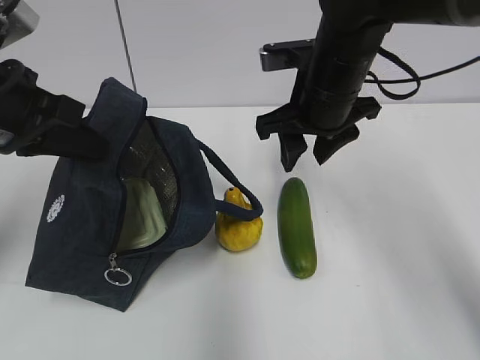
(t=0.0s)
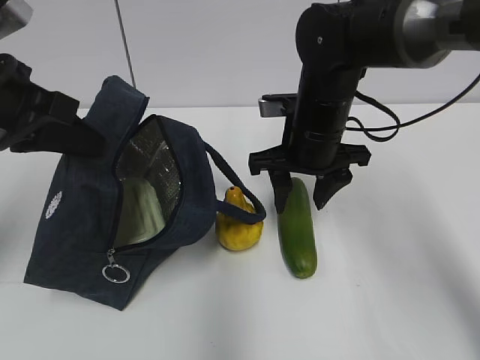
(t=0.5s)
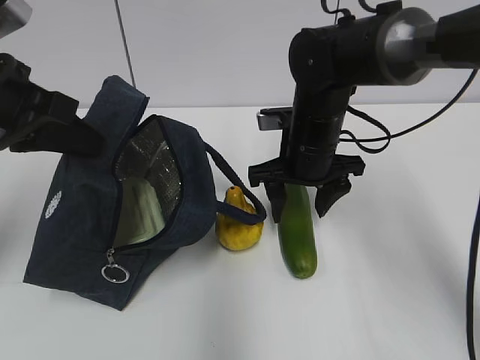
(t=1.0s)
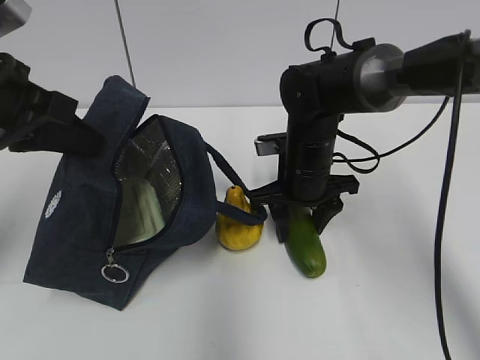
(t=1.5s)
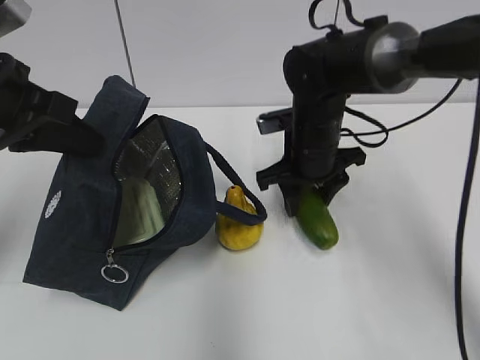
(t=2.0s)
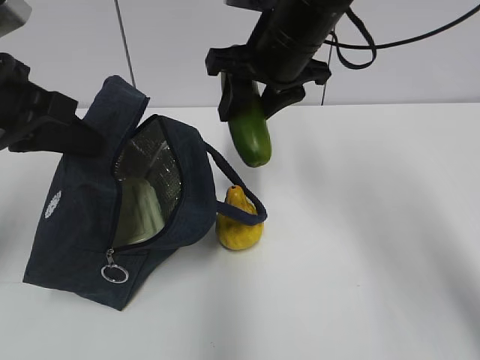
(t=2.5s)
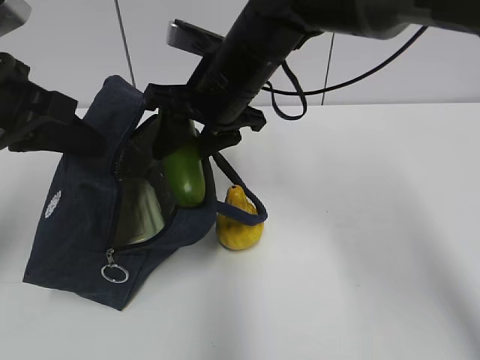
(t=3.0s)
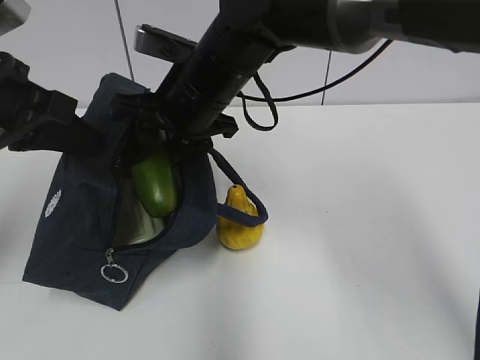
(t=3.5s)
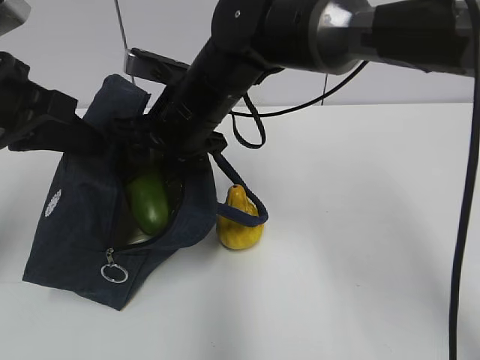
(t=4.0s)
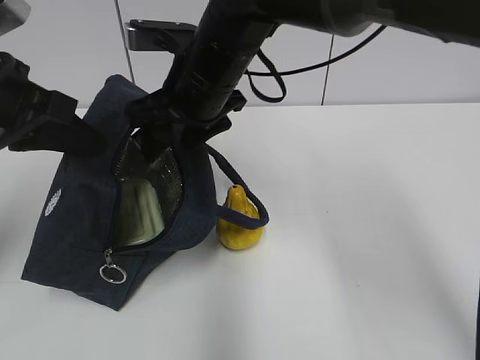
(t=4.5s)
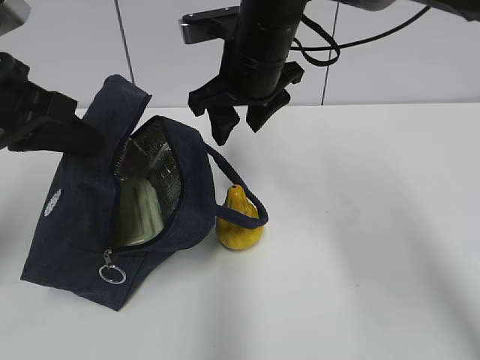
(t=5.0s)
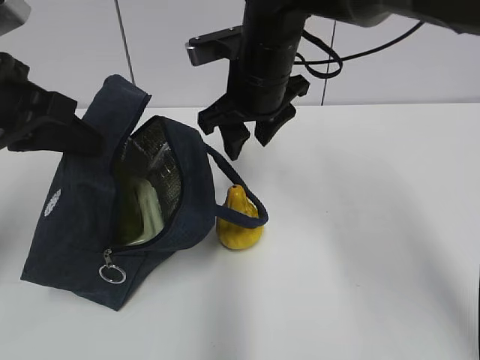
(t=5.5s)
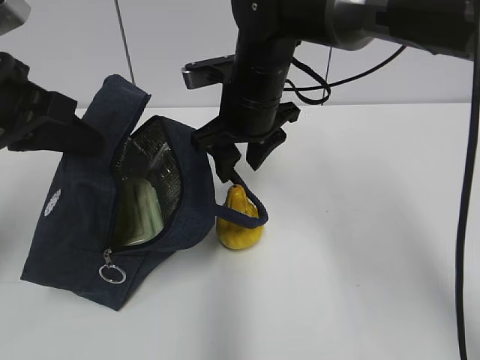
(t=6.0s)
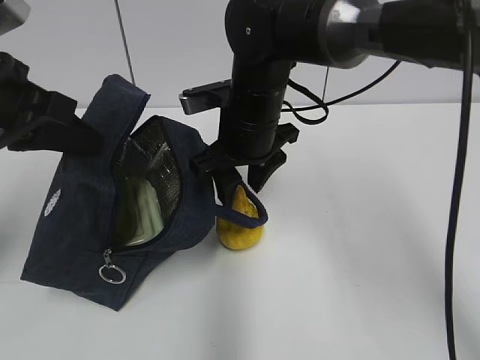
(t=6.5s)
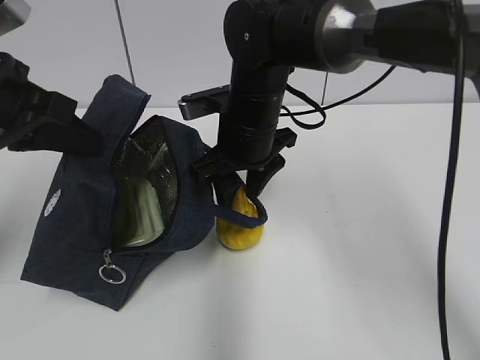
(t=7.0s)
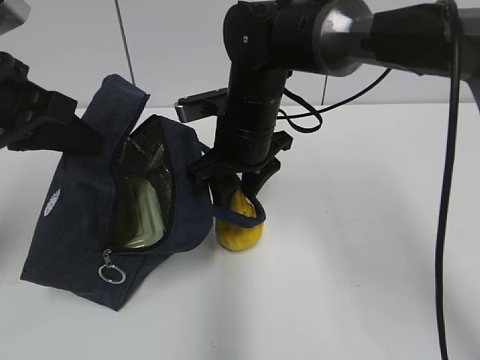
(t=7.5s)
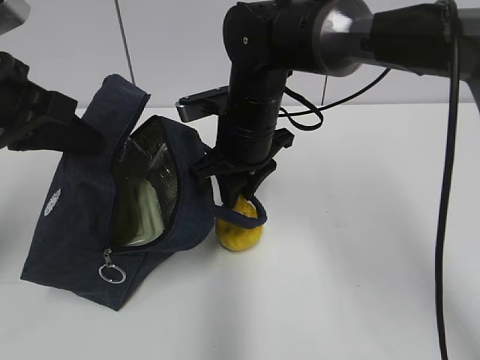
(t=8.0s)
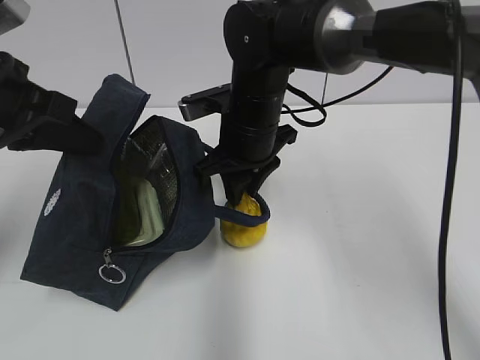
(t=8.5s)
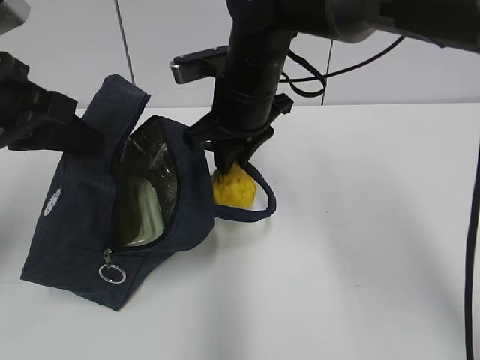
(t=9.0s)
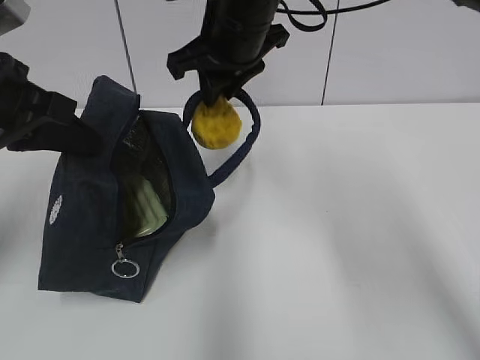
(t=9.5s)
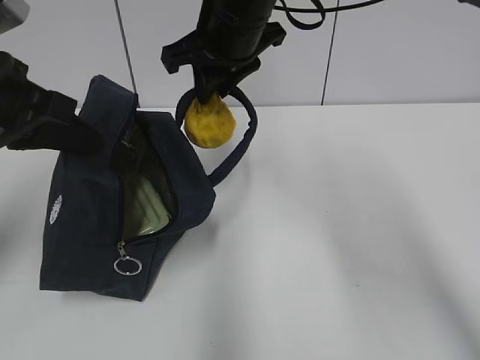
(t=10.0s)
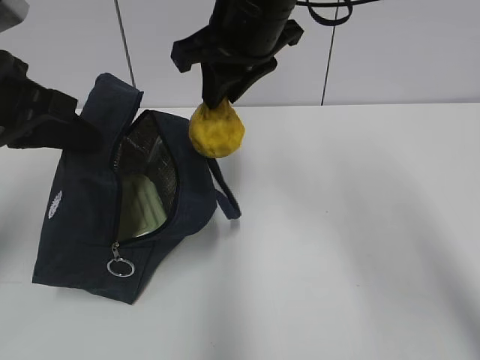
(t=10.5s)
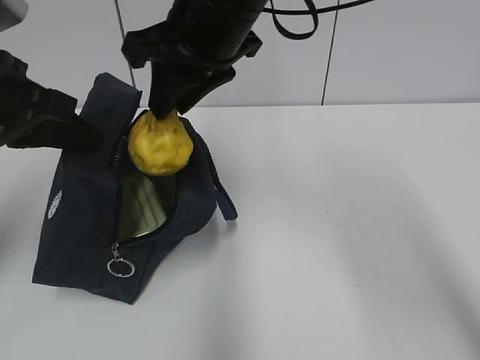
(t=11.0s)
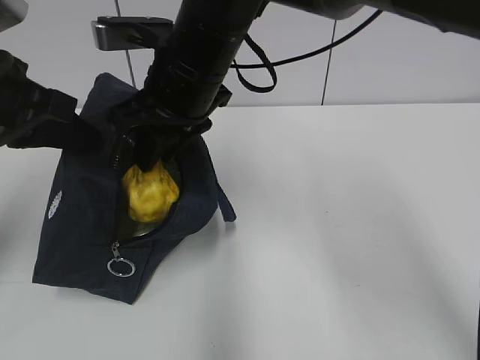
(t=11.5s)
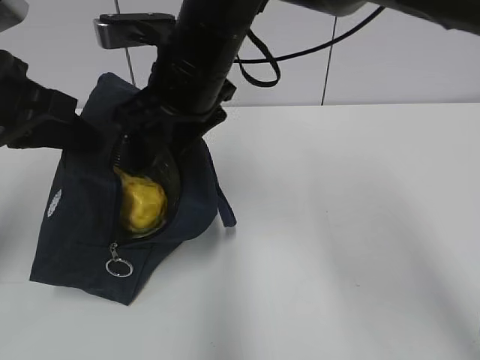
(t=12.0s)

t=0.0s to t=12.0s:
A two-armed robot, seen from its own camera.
Step, t=0.0s to t=1.5s: Grab the cucumber with your right hand.
Step, t=2.0s to t=4.0s: Place it into the bag with your right hand.
Step, t=4.5s to t=7.5s: Grab the pear with your right hand.
t=0.0s to t=2.0s: The right gripper travels downward by some 10 cm.
t=2.0s to t=4.0s: The right gripper travels to the left and upward by roughly 15 cm.
t=4.0s to t=6.0s: The right gripper moves to the right, about 5 cm.
t=6.0s to t=8.0s: The grippers stay close to where they were, moving slightly.
t=8.0s to t=10.0s: The right gripper heads upward, covering approximately 10 cm.
t=10.0s to t=12.0s: The right gripper changes place by approximately 5 cm, and opens its fingers.

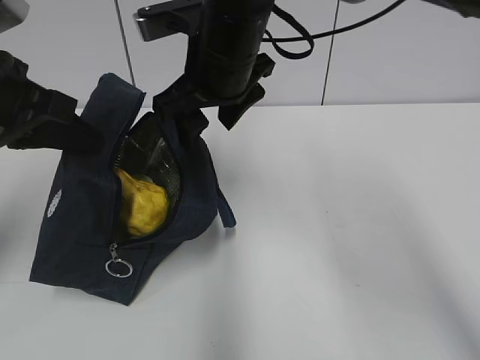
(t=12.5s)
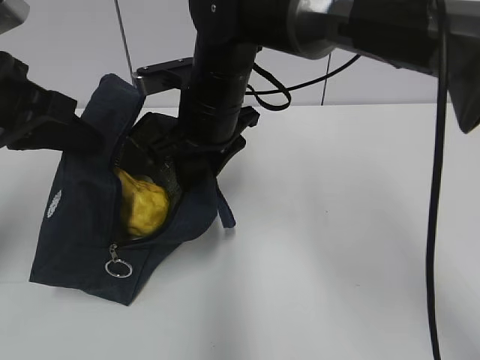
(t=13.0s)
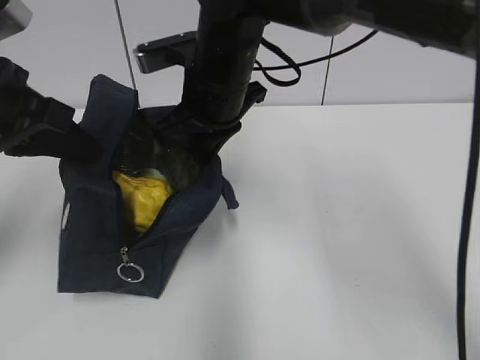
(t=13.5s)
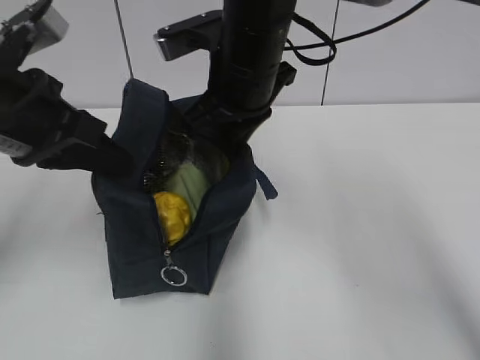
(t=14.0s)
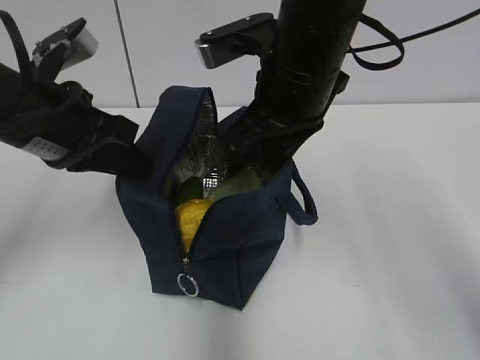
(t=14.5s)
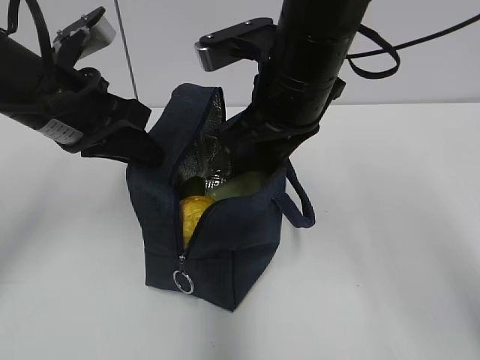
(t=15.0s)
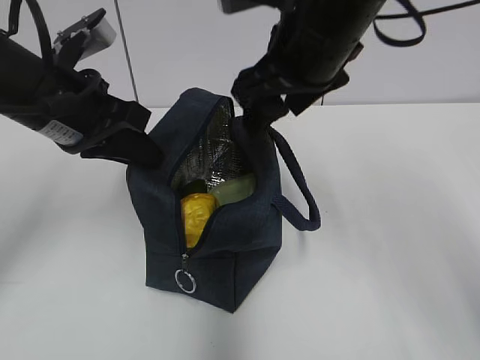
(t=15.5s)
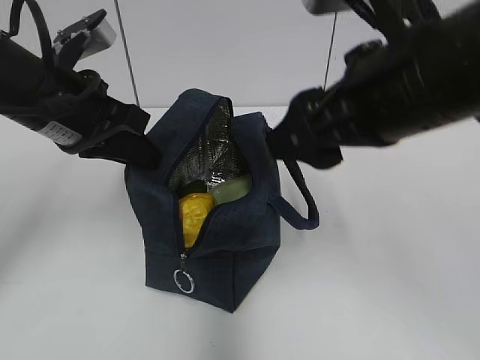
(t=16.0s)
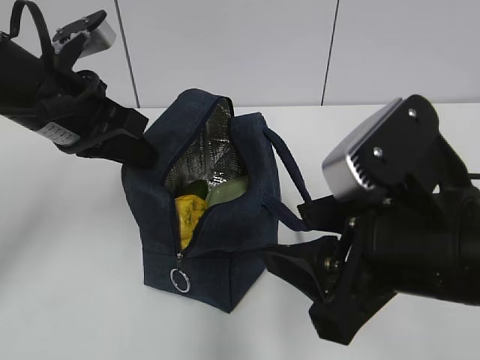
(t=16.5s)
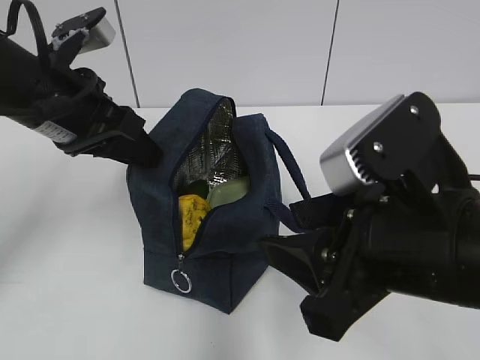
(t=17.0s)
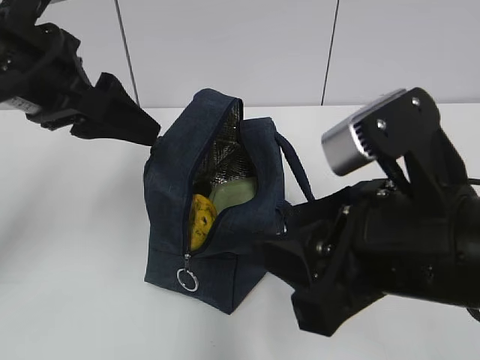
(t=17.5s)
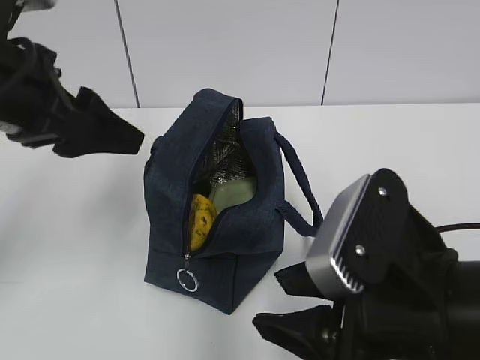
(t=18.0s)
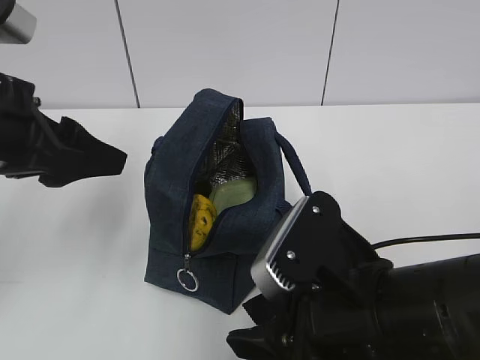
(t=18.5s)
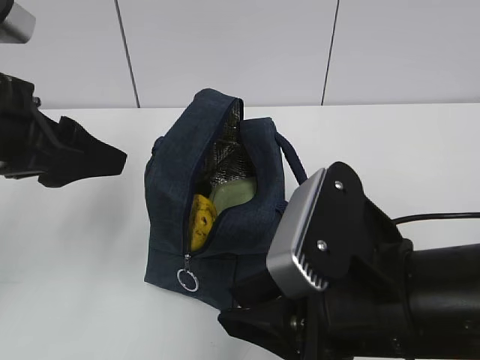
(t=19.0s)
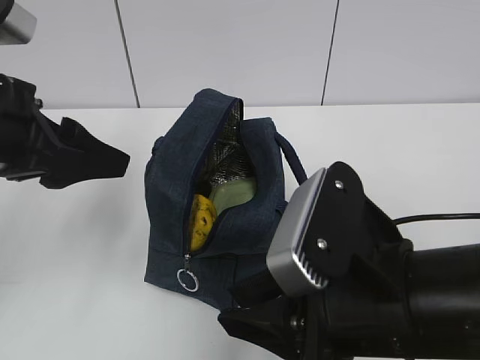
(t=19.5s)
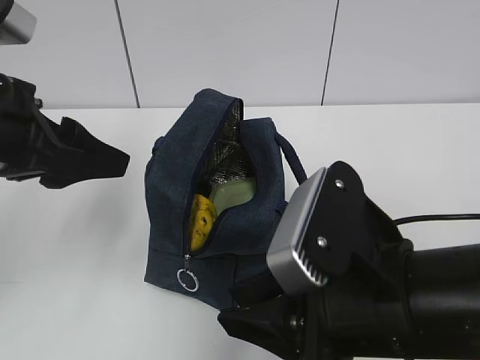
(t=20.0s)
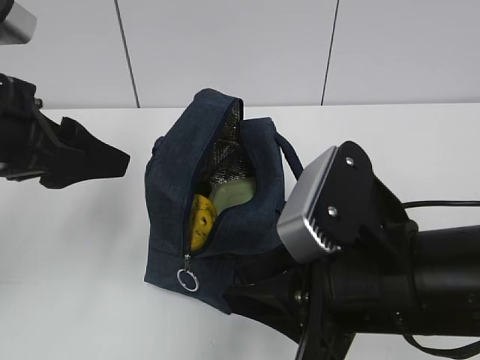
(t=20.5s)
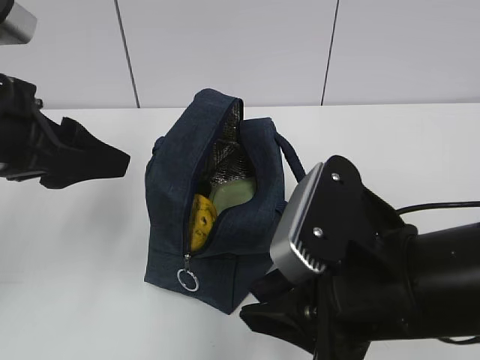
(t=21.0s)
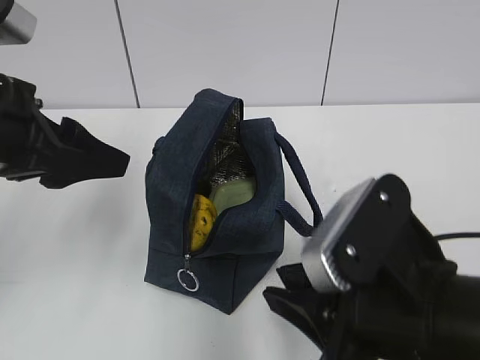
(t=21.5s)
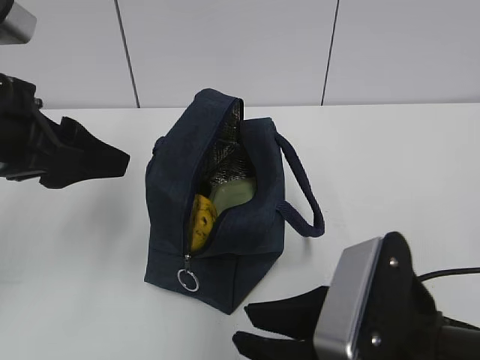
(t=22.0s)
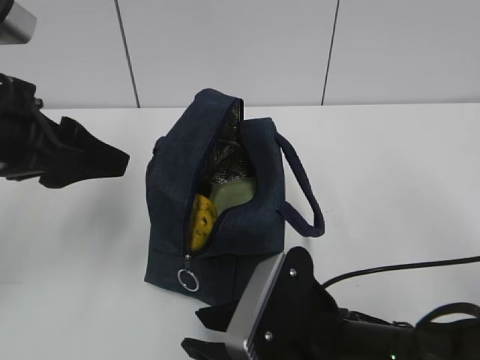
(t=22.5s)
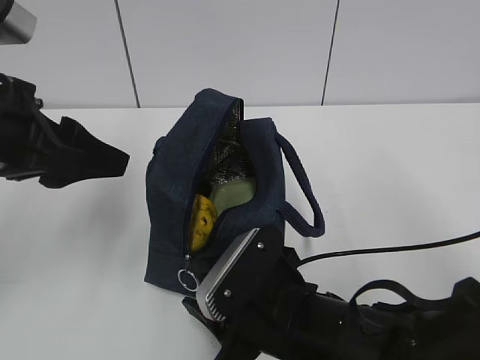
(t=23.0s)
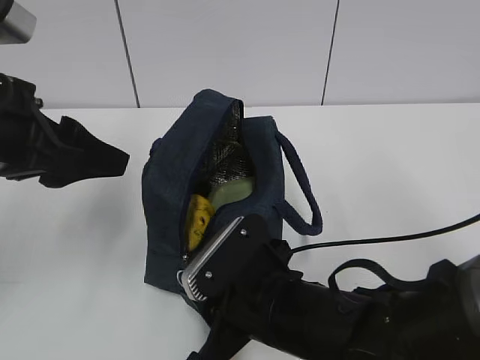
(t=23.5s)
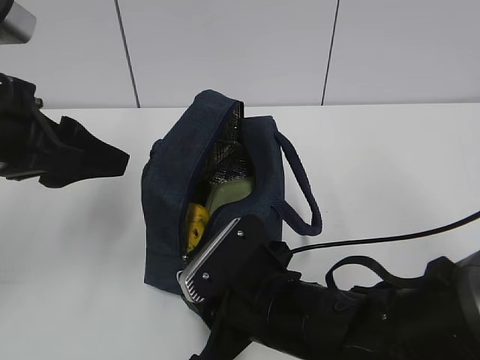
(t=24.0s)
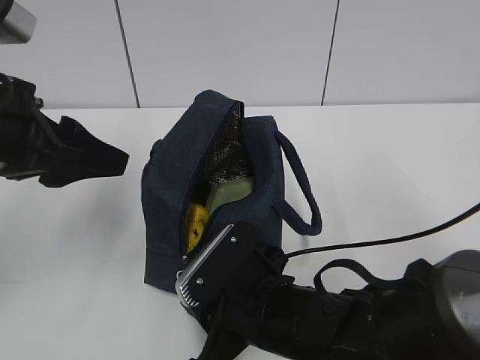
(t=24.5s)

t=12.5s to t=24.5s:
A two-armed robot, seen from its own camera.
Step, t=13.5s to t=15.0s: Move the lunch bag to the right.
t=12.5s to t=14.5s: The left gripper changes place by roughly 5 cm; the right gripper travels to the right and backward by approximately 10 cm, and closes up.
t=14.5s to t=16.5s: The right gripper shifts about 15 cm backward, and opens up.
t=16.5s to t=18.5s: The left gripper moves backward, some 5 cm, and opens its fingers, while the right gripper goes about 5 cm downward.
t=18.5s to t=20.5s: There are only small adjustments of the grippers.
t=20.5s to t=22.5s: The right gripper goes some 10 cm downward.
t=22.5s to t=24.5s: The right gripper moves approximately 5 cm.

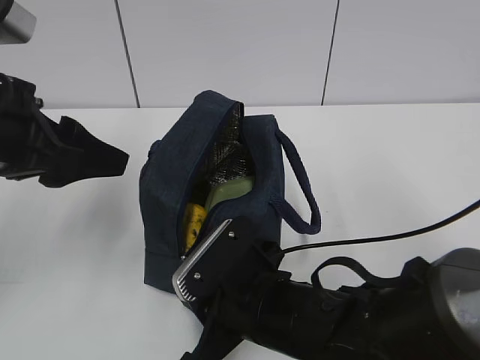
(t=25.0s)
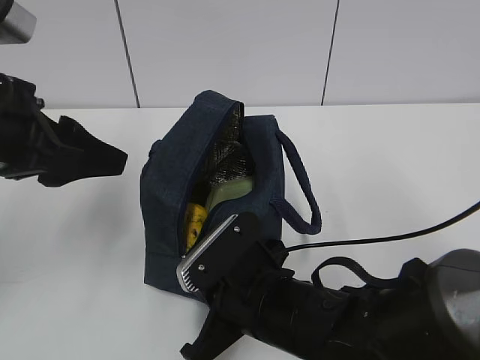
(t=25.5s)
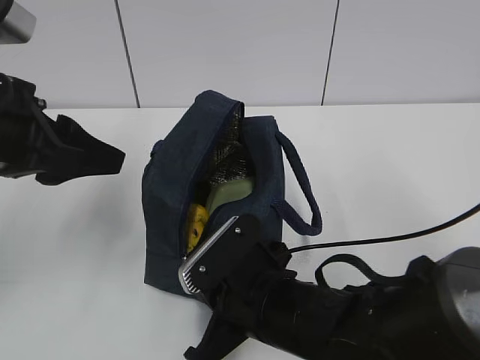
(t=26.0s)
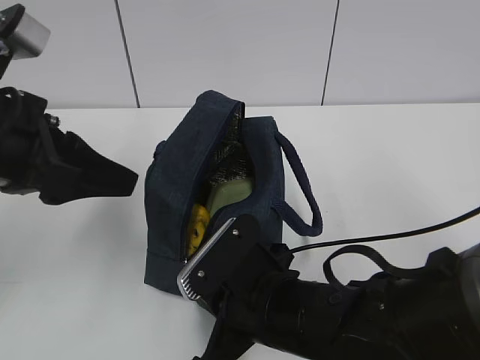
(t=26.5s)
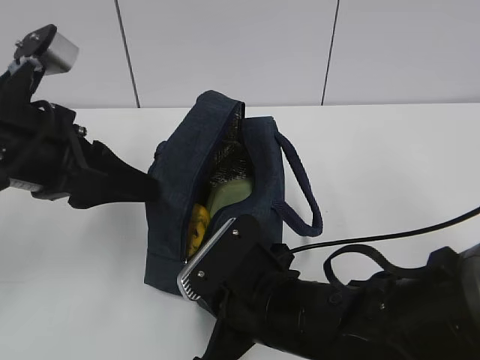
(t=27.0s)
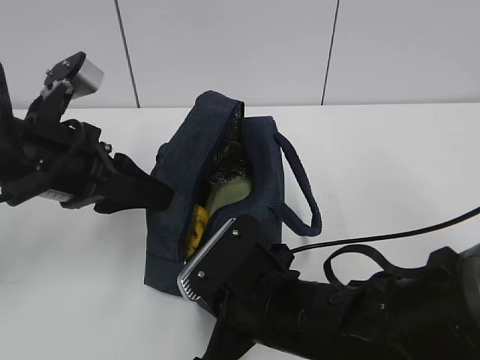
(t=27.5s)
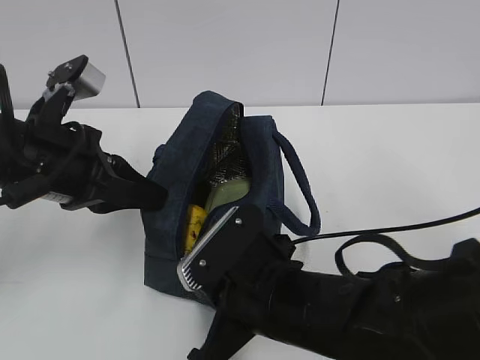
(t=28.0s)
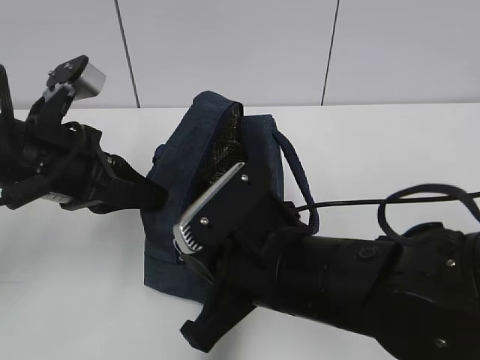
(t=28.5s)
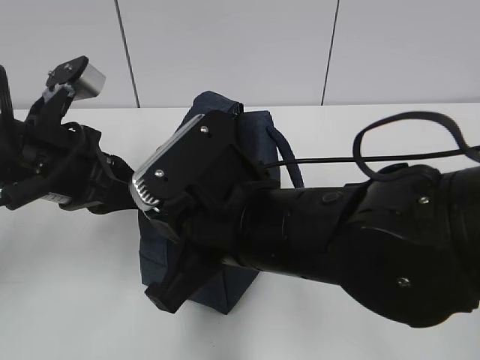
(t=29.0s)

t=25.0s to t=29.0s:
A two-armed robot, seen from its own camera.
t=25.0s to t=27.0s: The right gripper closes.
t=27.0s to t=29.0s: The left gripper closes its fingers; the right gripper shifts roughly 10 cm upward.
